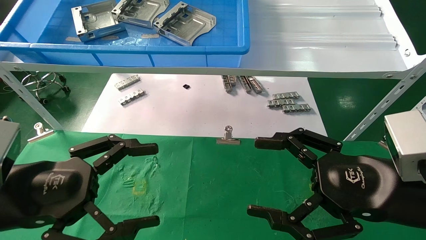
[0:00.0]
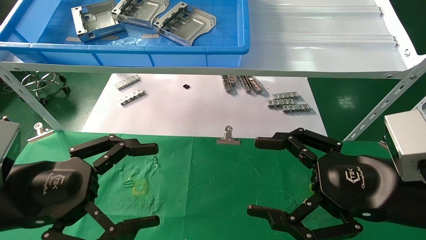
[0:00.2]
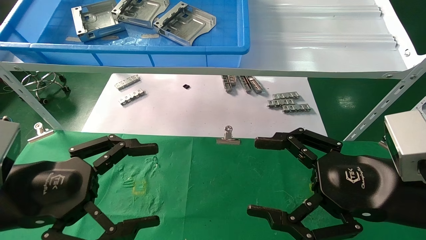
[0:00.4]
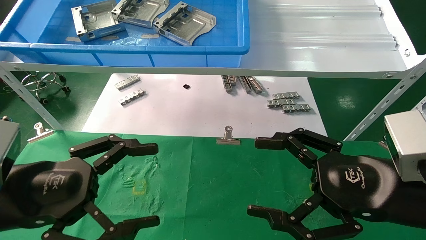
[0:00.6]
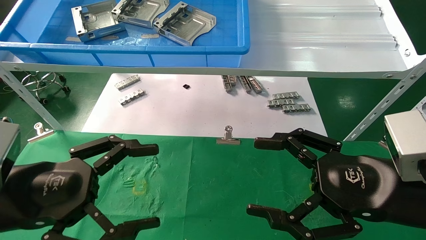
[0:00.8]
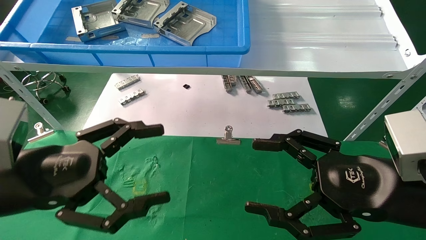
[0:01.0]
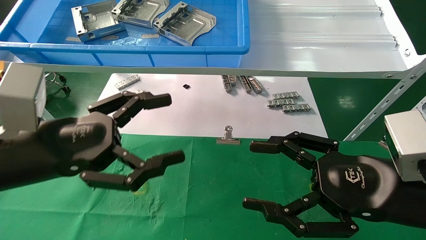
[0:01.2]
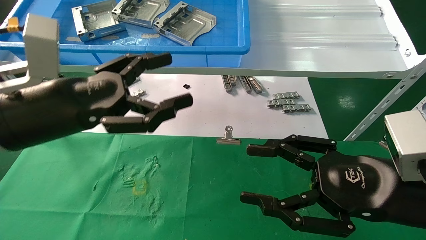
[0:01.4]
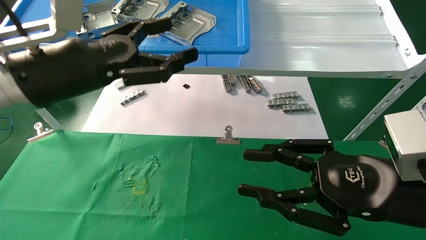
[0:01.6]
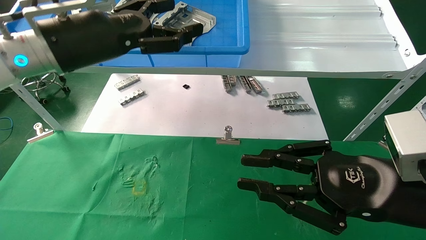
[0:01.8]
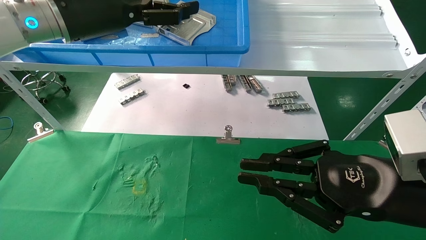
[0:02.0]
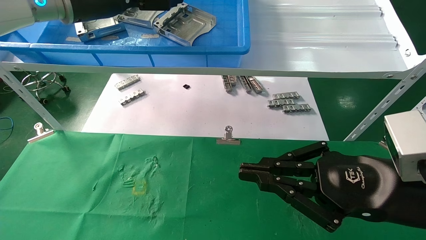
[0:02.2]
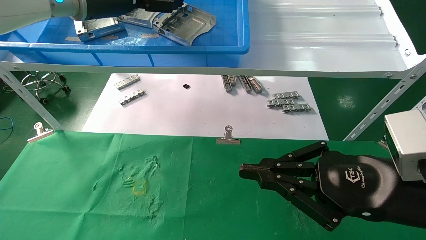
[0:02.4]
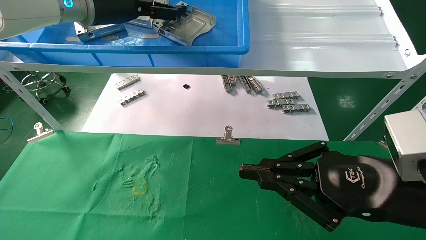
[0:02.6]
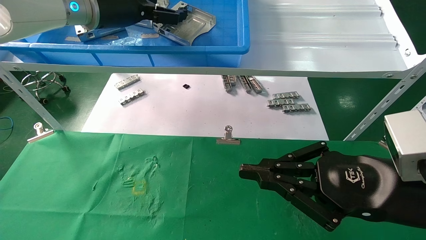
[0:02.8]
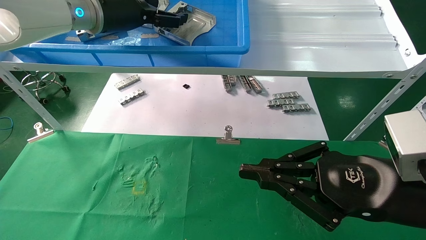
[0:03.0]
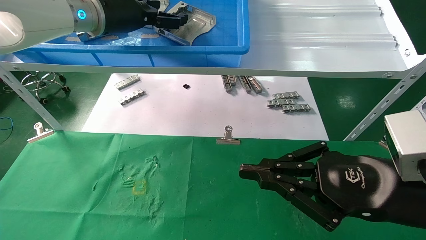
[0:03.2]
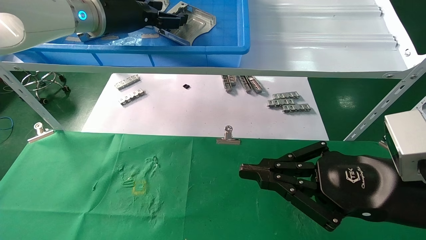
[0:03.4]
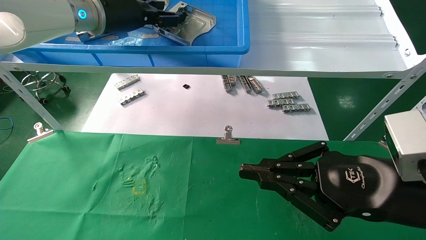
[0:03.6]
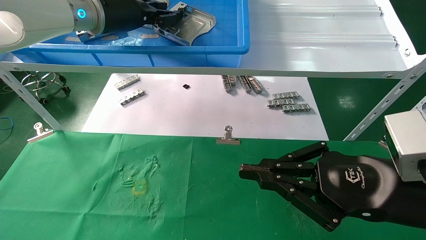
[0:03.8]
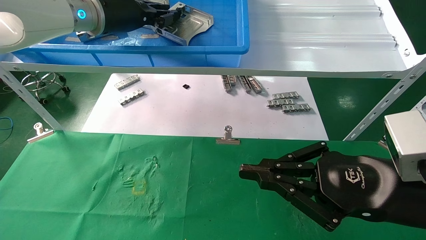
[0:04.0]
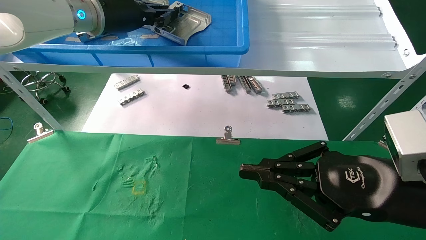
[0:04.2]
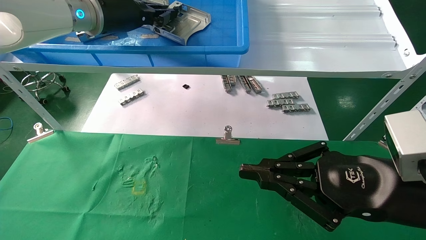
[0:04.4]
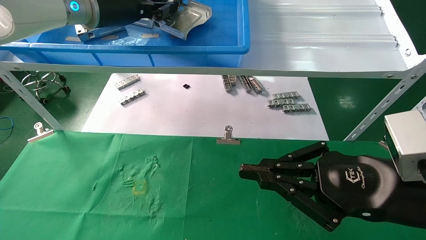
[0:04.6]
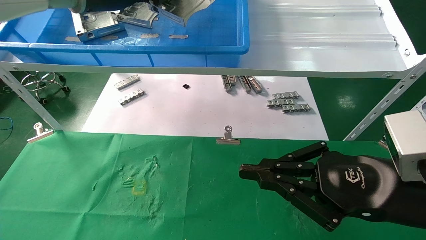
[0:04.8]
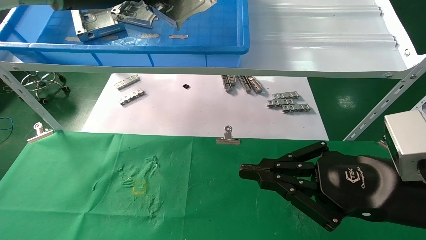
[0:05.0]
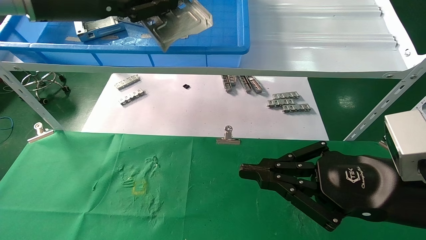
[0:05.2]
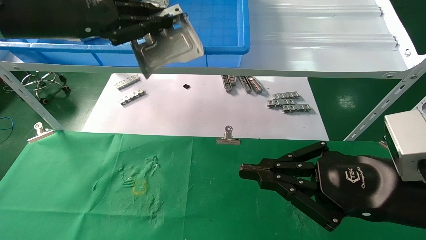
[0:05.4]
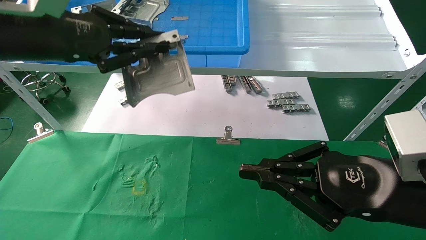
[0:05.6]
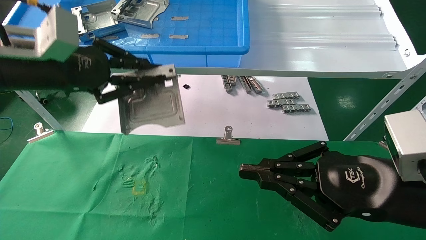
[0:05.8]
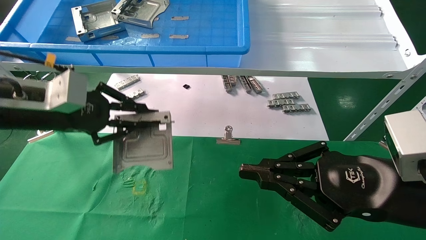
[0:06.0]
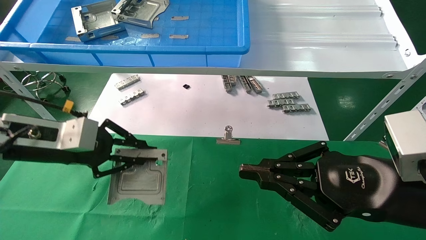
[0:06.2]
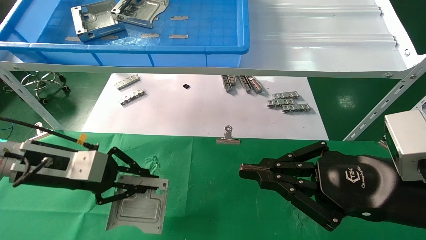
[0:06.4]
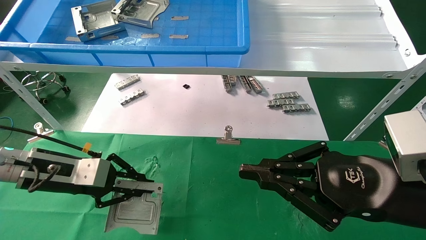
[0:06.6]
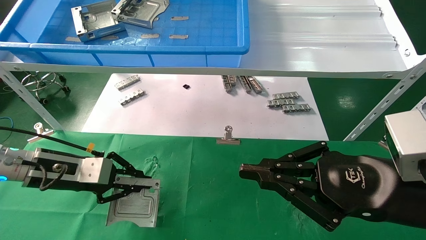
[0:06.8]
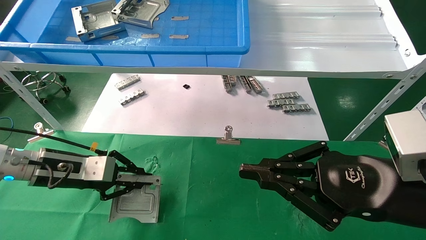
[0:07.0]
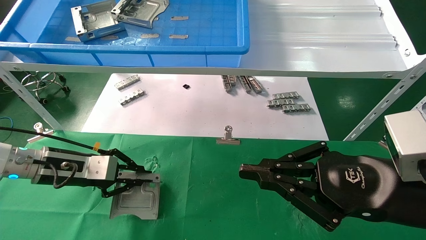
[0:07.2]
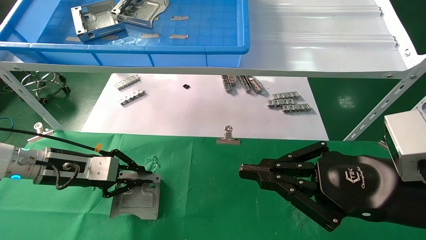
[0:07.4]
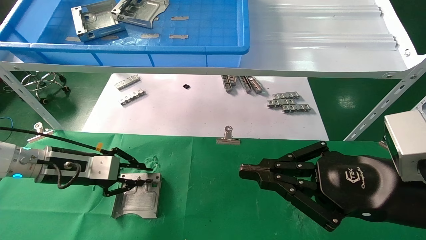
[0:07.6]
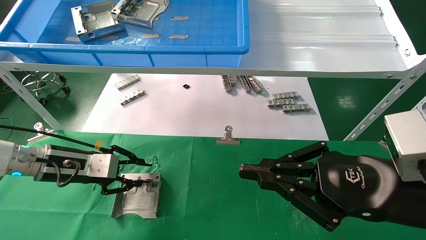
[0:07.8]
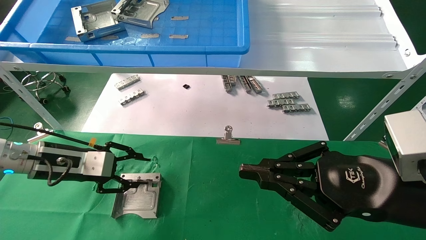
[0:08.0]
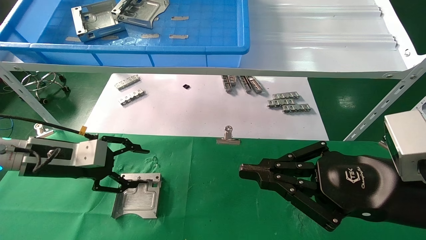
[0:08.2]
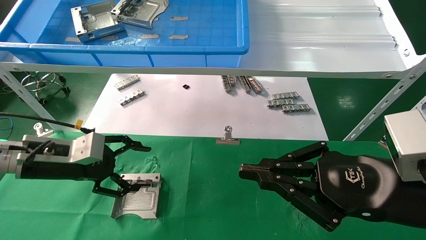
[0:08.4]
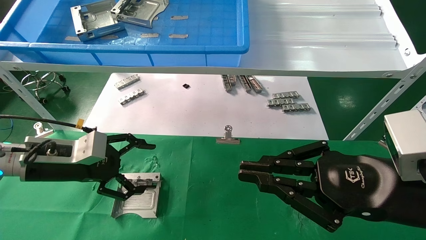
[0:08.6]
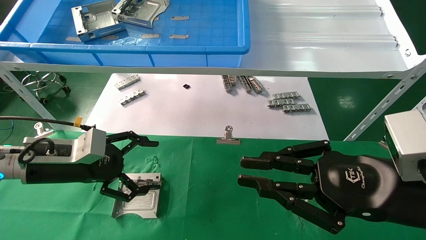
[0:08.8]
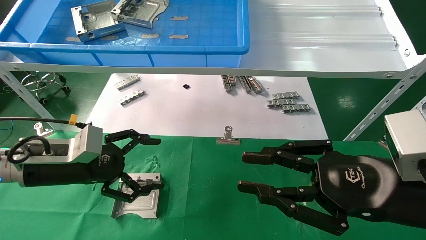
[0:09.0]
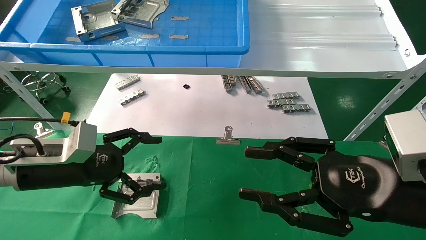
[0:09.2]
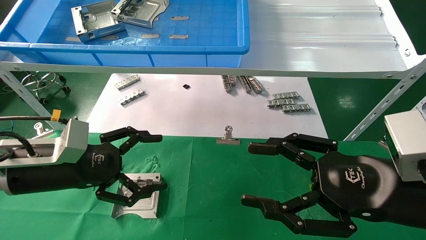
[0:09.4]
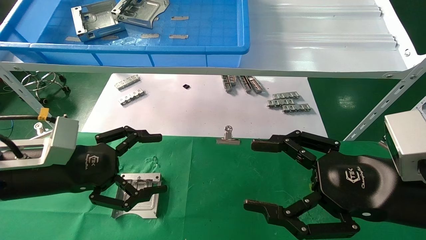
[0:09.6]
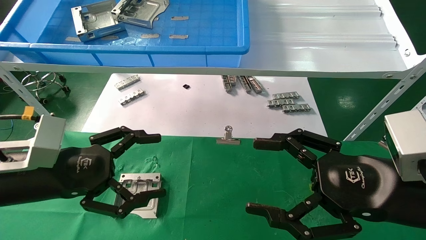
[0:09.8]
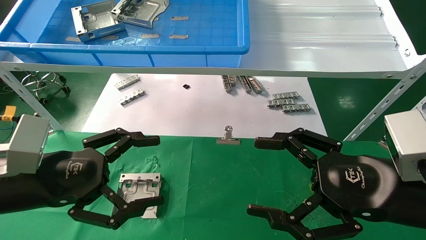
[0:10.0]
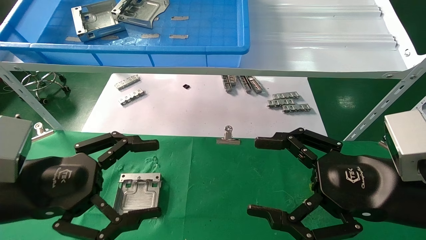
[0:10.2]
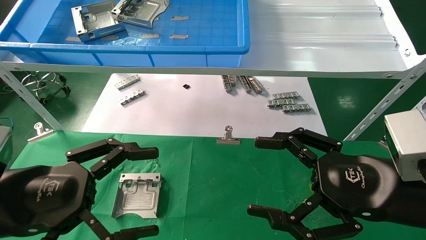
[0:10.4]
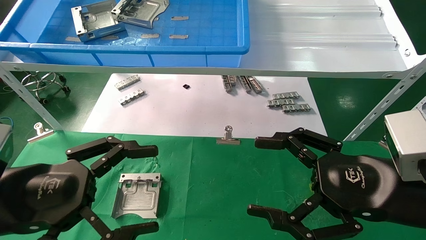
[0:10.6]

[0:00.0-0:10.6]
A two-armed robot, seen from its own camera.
Task of the whole recording: use the mechanical arm to pick up the parts and place them on the table.
Step, 0:01.2 to 0:04.2: Pick up the hard drive bracket from the feeding area.
Step, 0:04.4 to 0:07.8: Place the hard drive bracket into the box.
0:00.0 to 0:01.6: The left gripper heads upward and forward, covering roughly 15 cm; the right gripper closes its fingers.
0:01.6 to 0:03.0: The right gripper closes, while the left gripper travels forward and upward by approximately 15 cm.
0:03.0 to 0:04.6: The left gripper closes.
0:04.6 to 0:06.0: The left gripper goes about 20 cm downward, backward and to the left.
0:06.0 to 0:07.6: The left gripper is displaced downward and forward by roughly 15 cm.
0:07.6 to 0:09.0: The left gripper shifts about 5 cm backward, and opens.
0:09.0 to 0:10.6: The right gripper opens up. The left gripper goes approximately 15 cm backward.

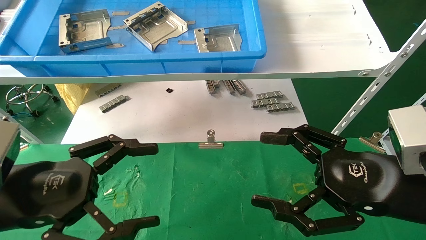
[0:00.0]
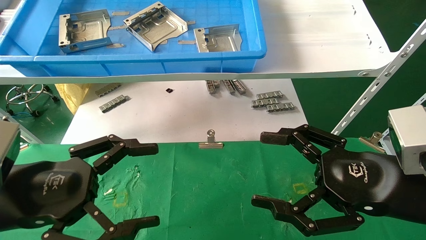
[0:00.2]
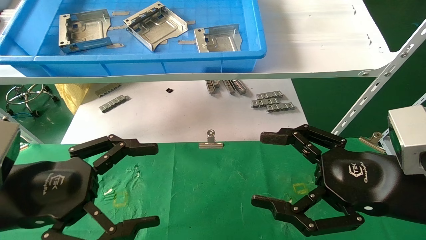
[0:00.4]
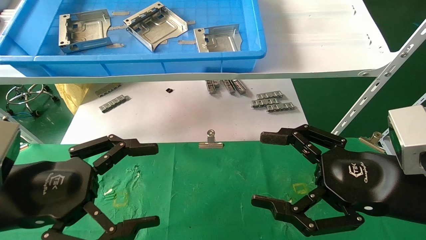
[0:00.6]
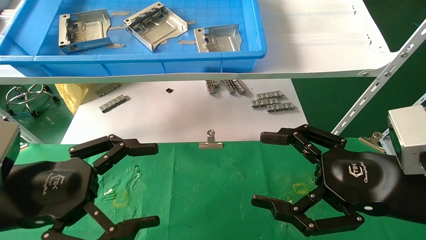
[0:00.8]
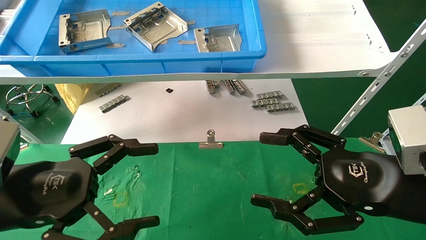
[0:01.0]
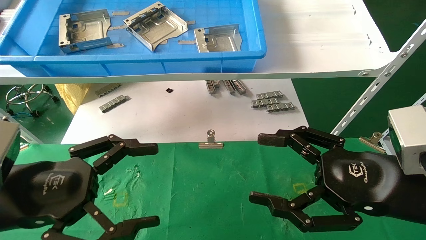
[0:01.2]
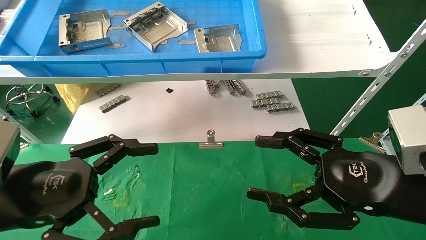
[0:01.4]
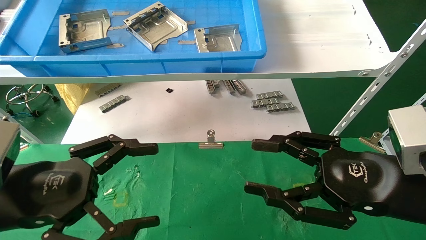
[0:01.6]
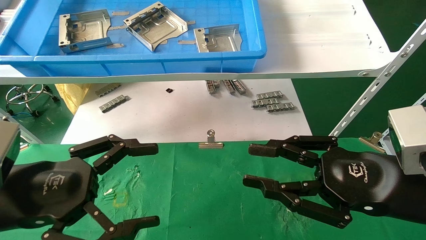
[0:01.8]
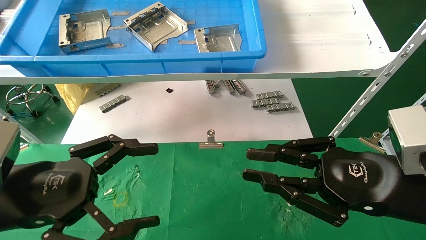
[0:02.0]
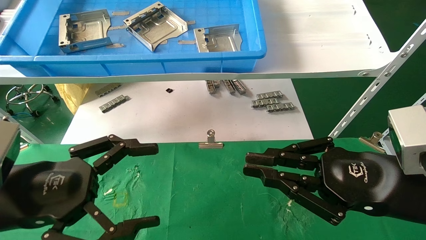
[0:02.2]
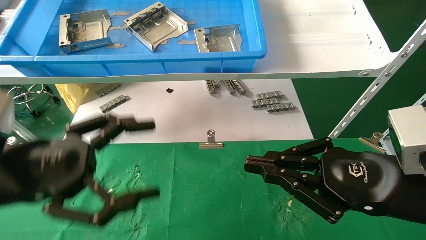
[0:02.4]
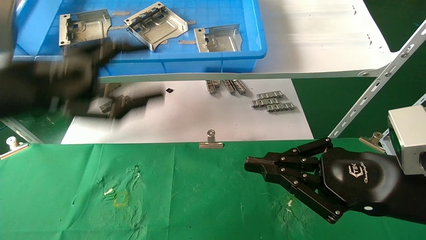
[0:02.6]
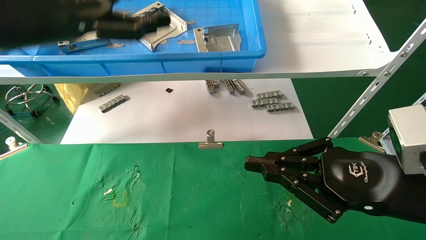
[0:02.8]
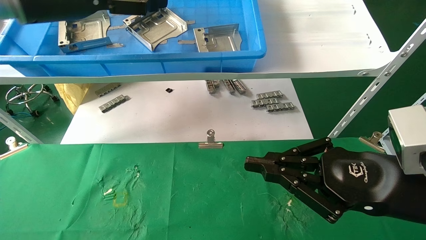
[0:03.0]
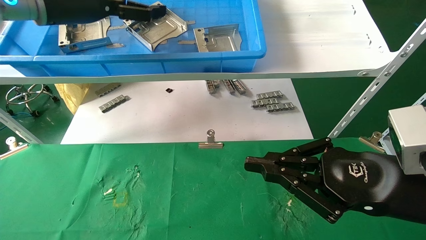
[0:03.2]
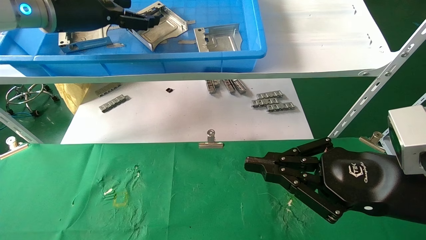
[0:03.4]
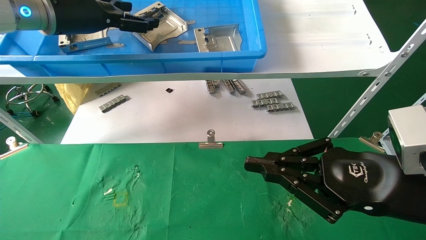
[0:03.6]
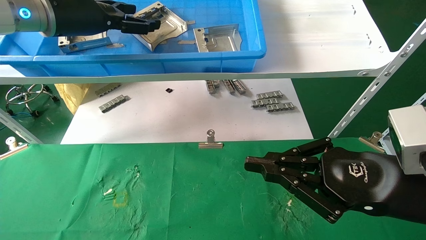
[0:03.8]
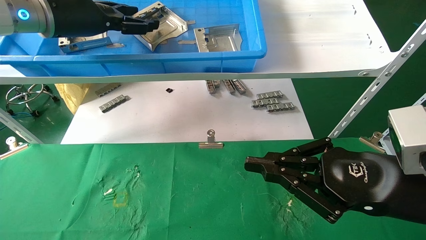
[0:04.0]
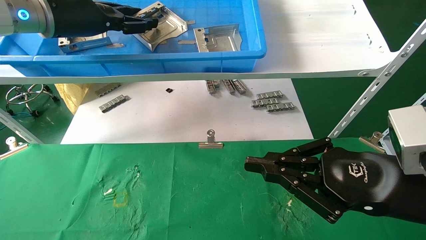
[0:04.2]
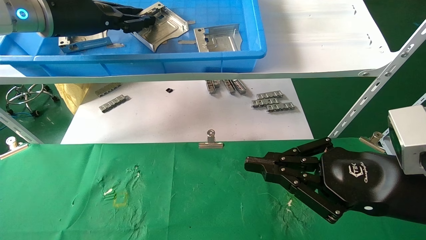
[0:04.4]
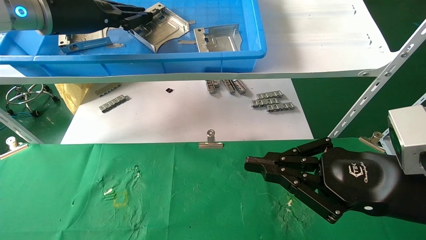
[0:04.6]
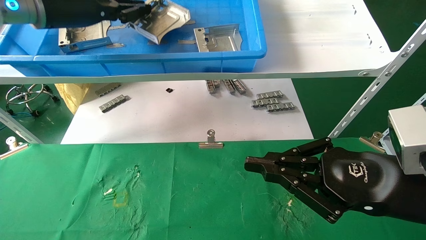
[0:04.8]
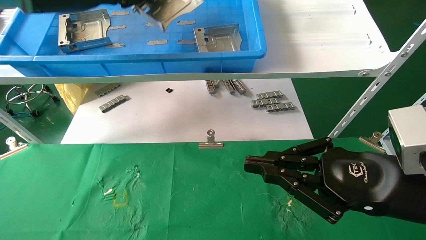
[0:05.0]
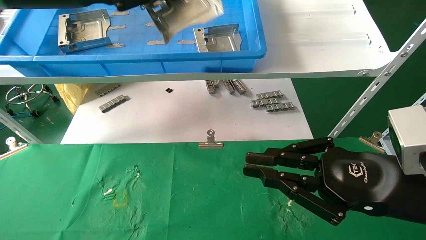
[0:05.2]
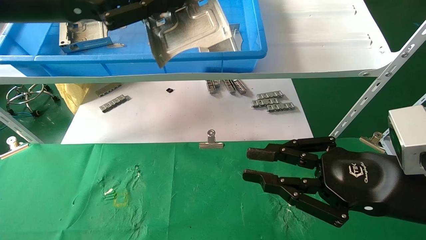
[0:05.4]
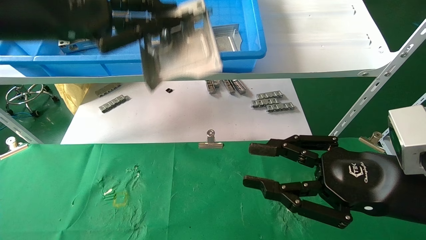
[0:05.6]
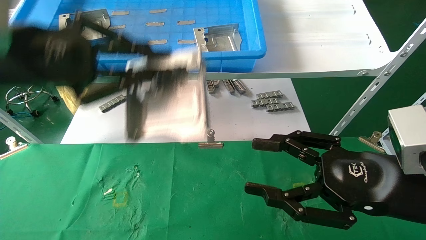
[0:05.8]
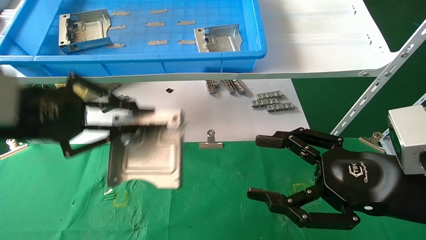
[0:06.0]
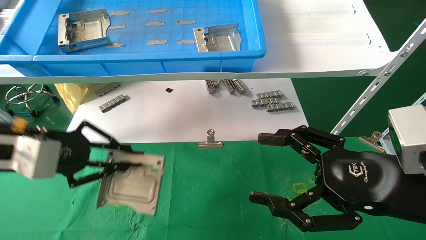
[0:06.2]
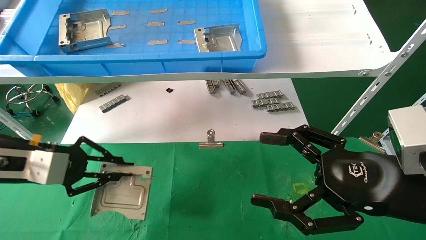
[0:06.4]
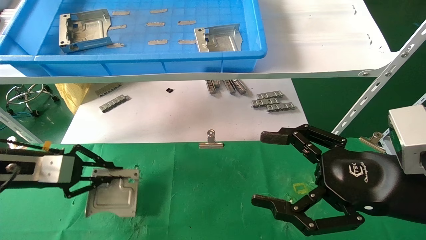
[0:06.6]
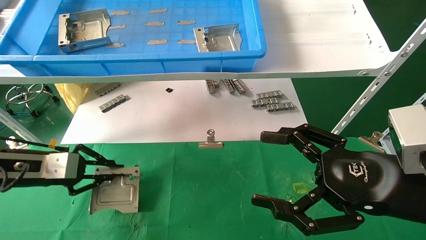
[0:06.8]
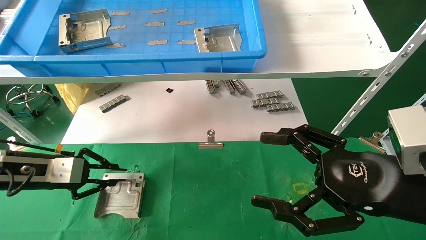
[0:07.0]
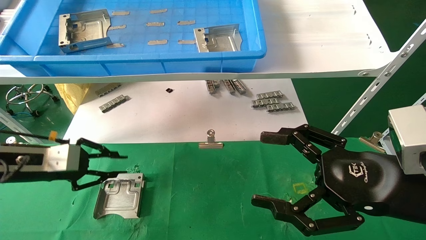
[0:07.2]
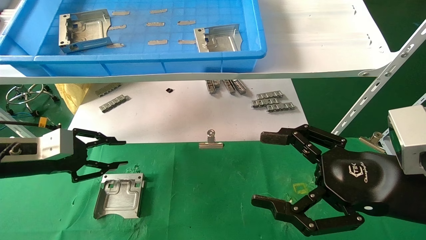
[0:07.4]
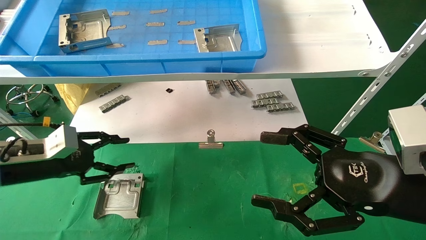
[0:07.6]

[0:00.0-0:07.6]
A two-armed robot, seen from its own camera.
Task of the whole recording: use the mechanical arm to pick up the parts and place them on the table.
Step, 0:01.4 to 0:04.2: Pick up the hard drive bracket from the feeding area.
Step, 0:04.4 to 0:07.4: Place the hard drive bracket into the box.
0:00.0 to 0:01.6: Neither gripper changes place.
0:01.6 to 0:03.0: The right gripper closes its fingers. Meanwhile the left gripper shifts some 25 cm upward and forward.
0:03.0 to 0:04.6: The left gripper closes its fingers.
0:04.6 to 0:06.0: The right gripper opens its fingers. Meanwhile the left gripper travels backward and downward by approximately 20 cm.
0:06.0 to 0:07.6: The left gripper travels downward, forward and to the left by about 20 cm, and opens its fingers. Meanwhile the right gripper opens its fingers.
